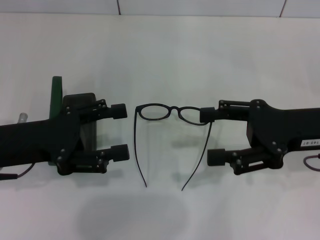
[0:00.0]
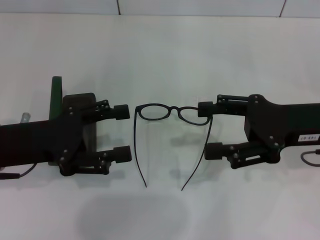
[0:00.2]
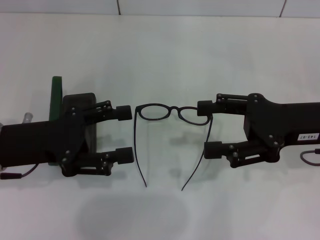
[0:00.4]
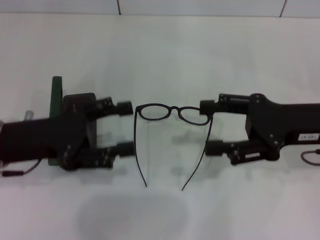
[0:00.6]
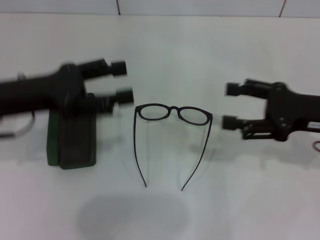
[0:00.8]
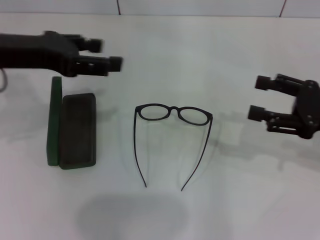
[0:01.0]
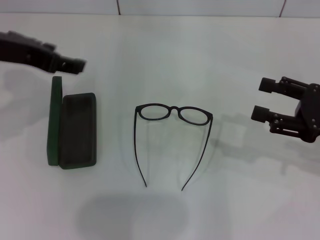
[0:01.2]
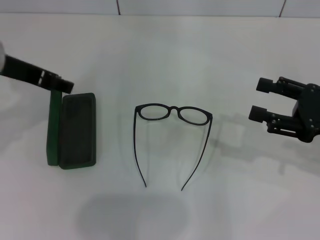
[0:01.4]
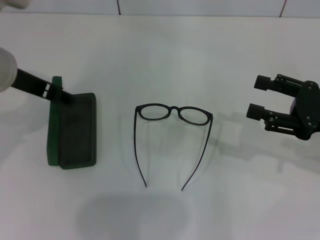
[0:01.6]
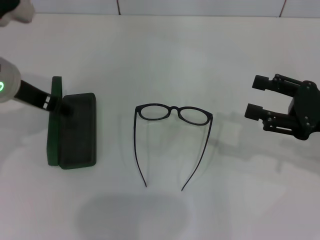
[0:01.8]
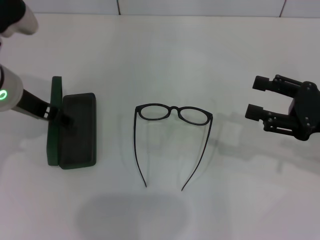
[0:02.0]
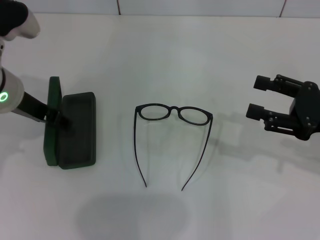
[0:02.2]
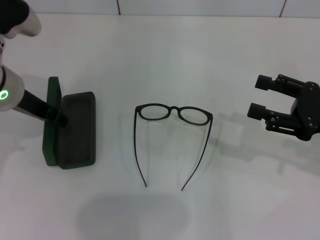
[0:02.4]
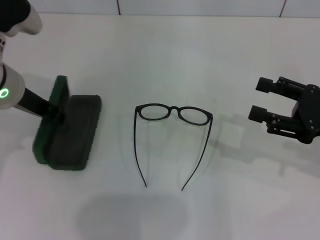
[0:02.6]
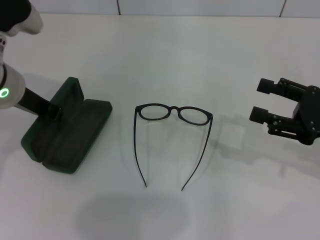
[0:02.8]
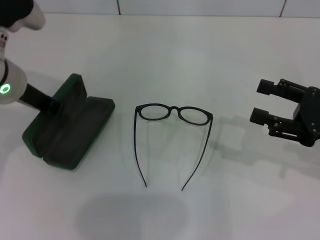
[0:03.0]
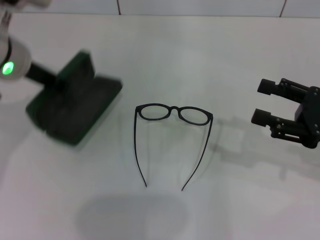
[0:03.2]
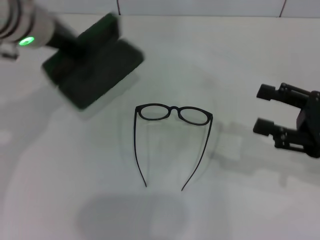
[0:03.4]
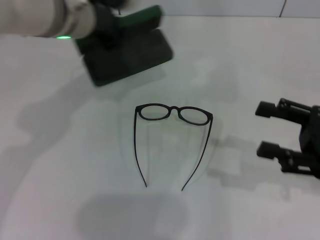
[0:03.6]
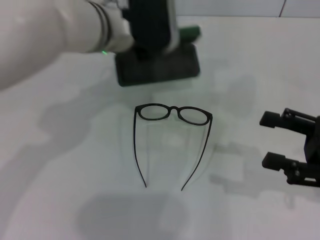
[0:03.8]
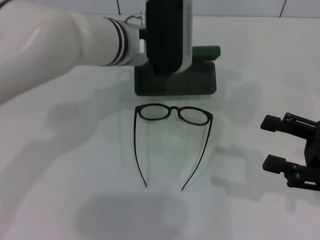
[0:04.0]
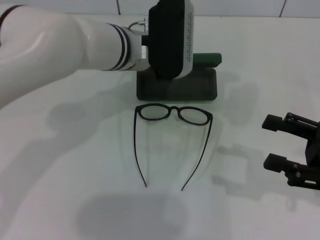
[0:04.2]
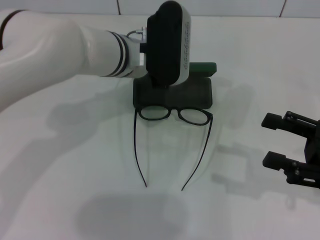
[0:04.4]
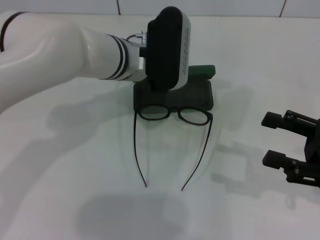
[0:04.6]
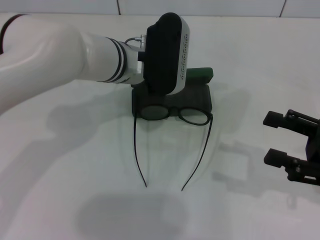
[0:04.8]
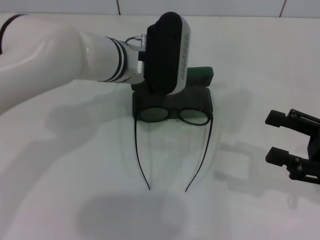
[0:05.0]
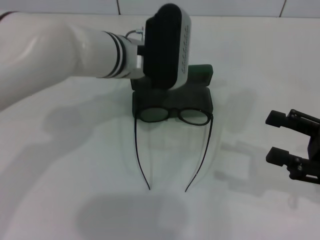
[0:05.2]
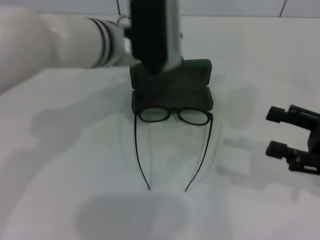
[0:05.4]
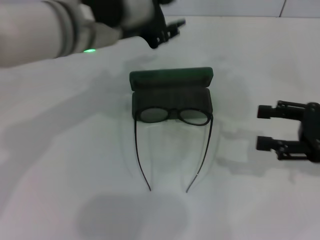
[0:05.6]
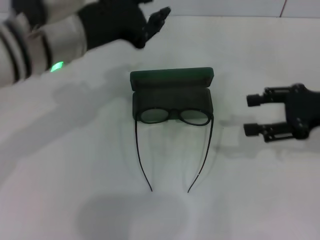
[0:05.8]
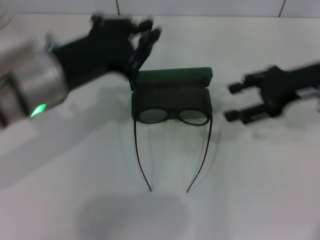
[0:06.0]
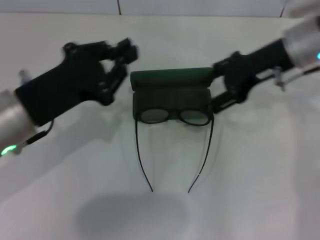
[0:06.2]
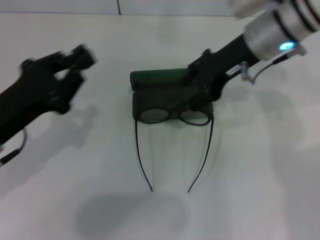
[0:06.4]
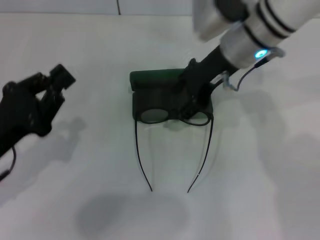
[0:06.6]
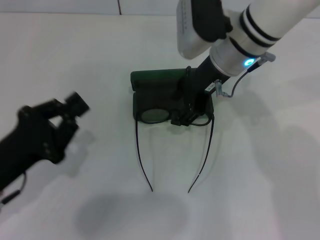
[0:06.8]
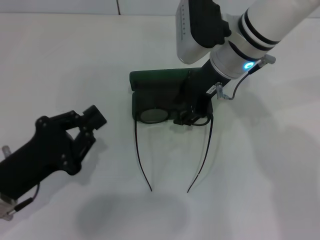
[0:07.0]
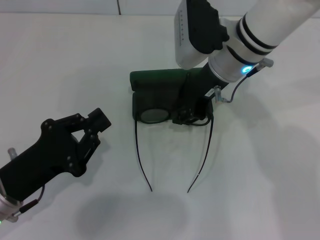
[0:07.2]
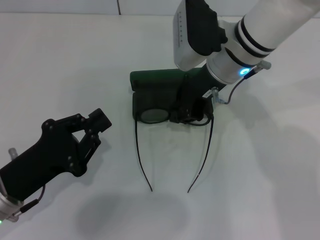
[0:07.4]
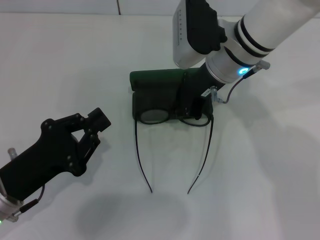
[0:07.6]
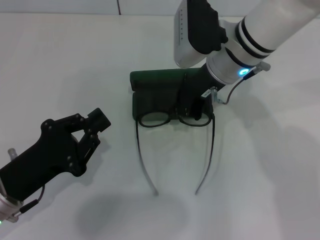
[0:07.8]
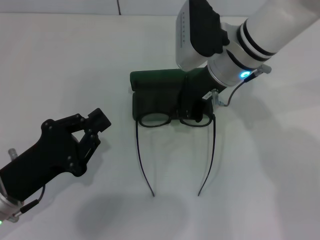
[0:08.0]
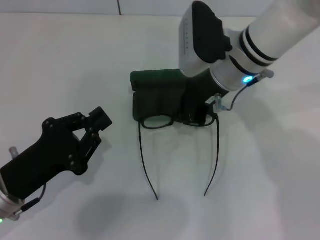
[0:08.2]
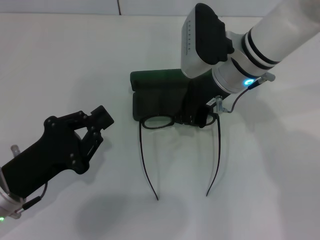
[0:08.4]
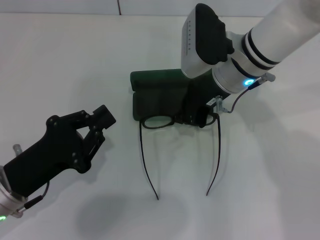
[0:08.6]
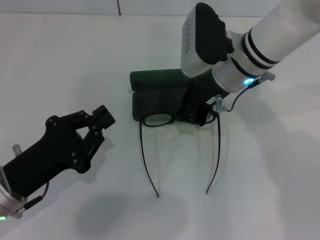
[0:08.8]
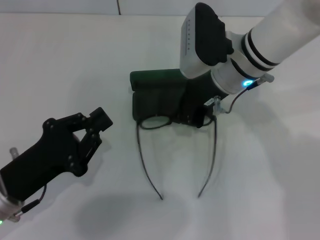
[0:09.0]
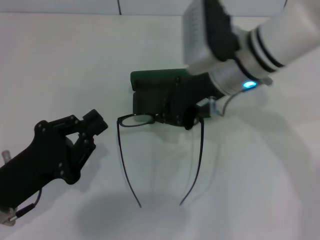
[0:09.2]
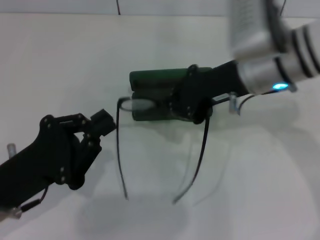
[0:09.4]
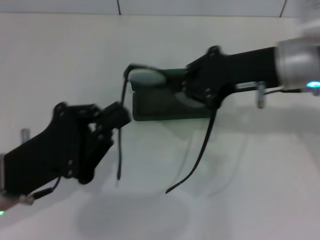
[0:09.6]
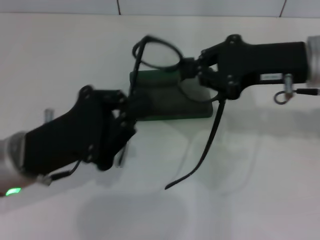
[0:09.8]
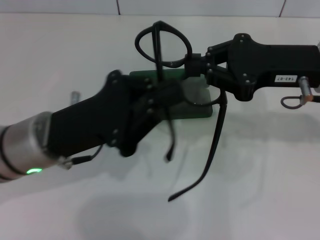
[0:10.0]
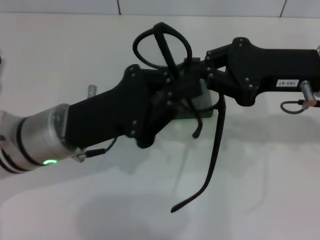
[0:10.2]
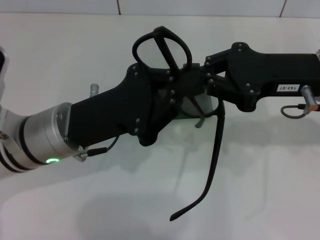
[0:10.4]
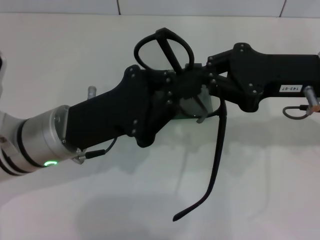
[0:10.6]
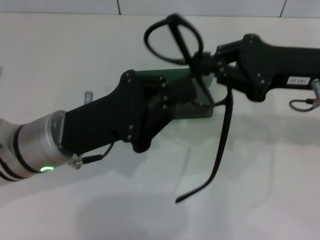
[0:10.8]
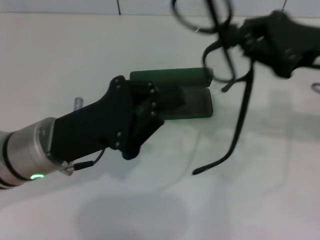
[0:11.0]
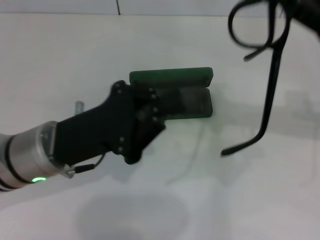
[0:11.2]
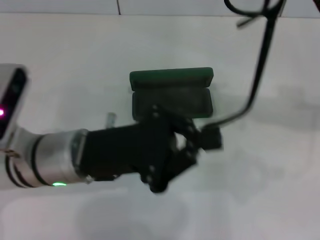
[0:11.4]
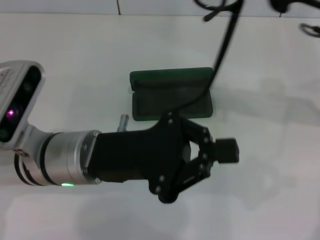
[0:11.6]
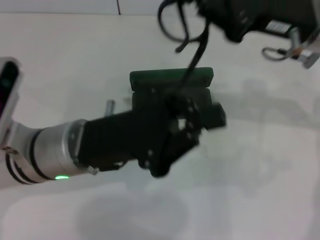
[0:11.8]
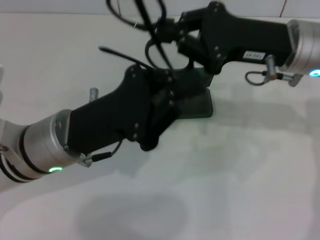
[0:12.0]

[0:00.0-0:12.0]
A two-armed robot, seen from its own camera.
Step, 0:00.0 to 0:02.8: Grab the glasses case with your left hand.
Step, 0:03.0 to 0:04.8: Place the glasses case in the center of the table with your left hand.
Step, 0:05.2 to 0:08.6: Grab the eyeglass frame with your right hand.
0:00.0 to 0:01.6: The left gripper travels upward and forward by some 10 cm. The right gripper travels to the right by some 5 cm.
0:01.6 to 0:03.0: The left gripper closes.
0:03.0 to 0:04.4: The left gripper goes about 15 cm to the right.
0:04.4 to 0:06.0: The right gripper heads forward, upward and to the left, covering about 15 cm, while the left gripper goes some 15 cm backward and to the left.
0:06.0 to 0:07.6: The right gripper shifts about 15 cm to the left, and closes its fingers. The left gripper goes some 15 cm downward, backward and to the left.
0:07.6 to 0:09.0: There are only small adjustments of the grippers.
0:09.0 to 0:10.4: The right gripper shifts about 15 cm to the right and backward; the left gripper travels to the right, forward and upward by roughly 15 cm.

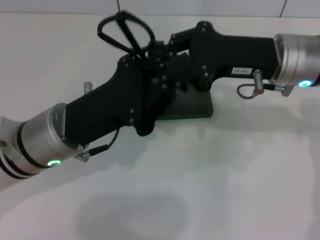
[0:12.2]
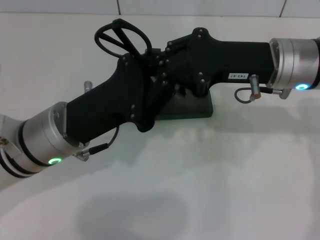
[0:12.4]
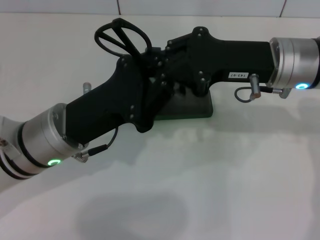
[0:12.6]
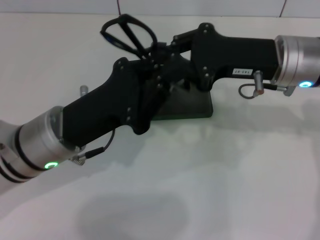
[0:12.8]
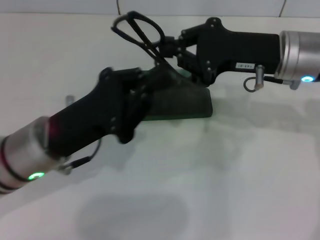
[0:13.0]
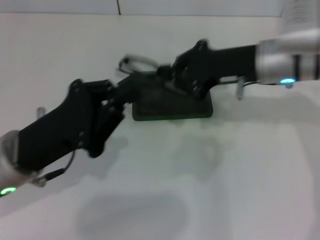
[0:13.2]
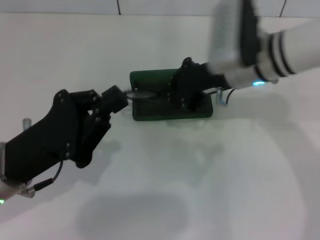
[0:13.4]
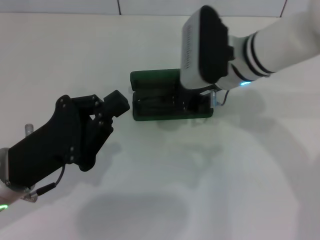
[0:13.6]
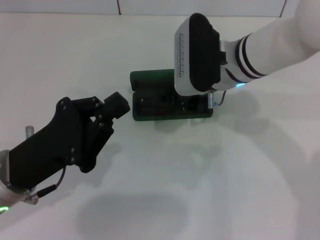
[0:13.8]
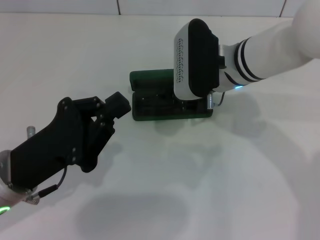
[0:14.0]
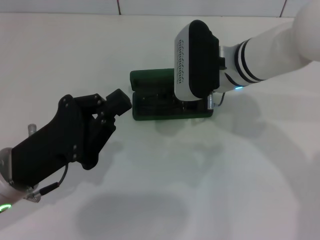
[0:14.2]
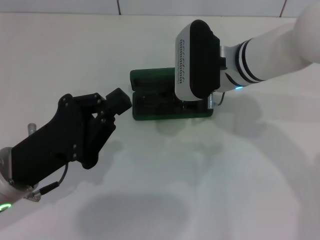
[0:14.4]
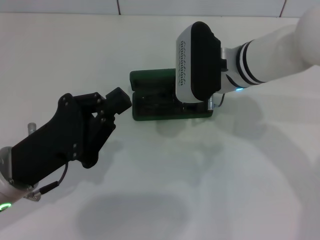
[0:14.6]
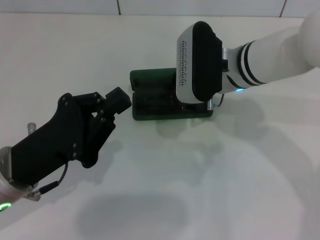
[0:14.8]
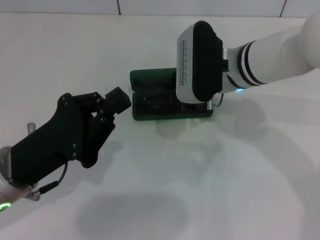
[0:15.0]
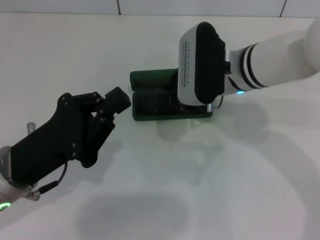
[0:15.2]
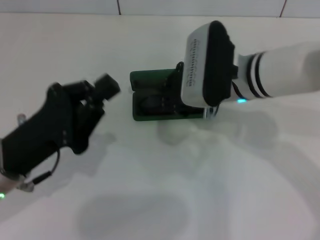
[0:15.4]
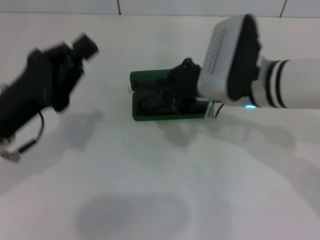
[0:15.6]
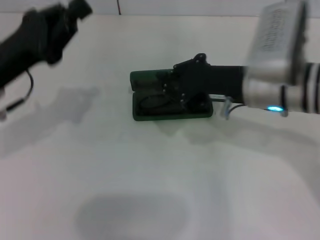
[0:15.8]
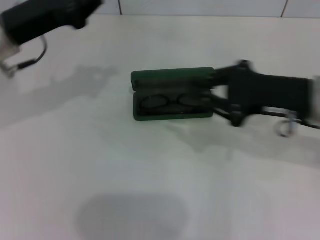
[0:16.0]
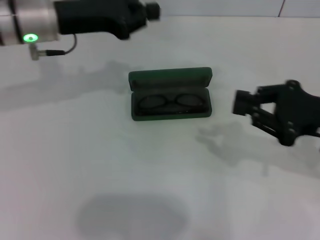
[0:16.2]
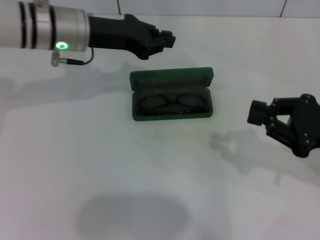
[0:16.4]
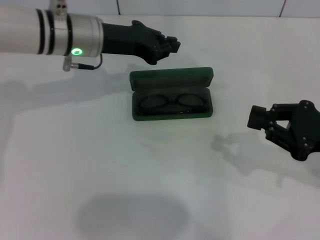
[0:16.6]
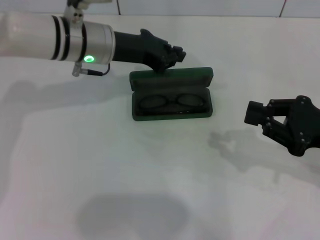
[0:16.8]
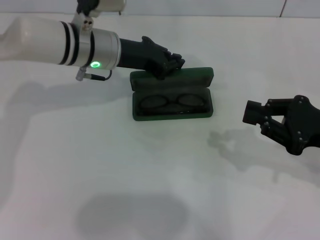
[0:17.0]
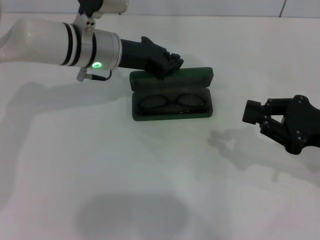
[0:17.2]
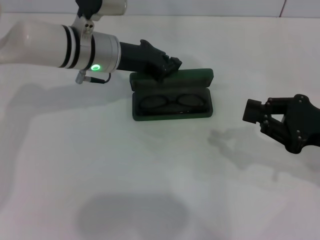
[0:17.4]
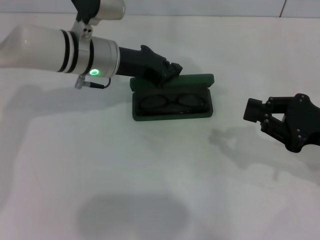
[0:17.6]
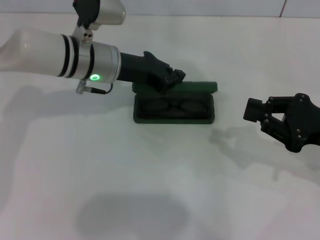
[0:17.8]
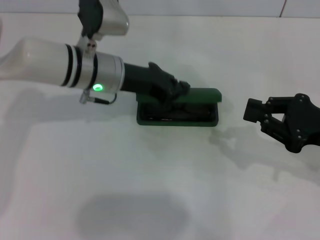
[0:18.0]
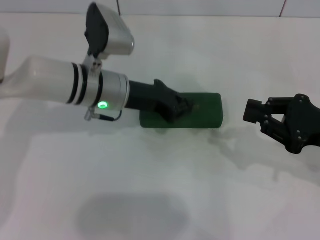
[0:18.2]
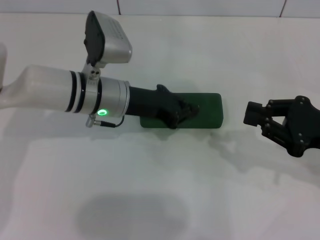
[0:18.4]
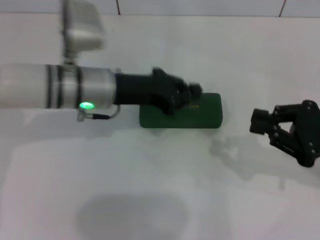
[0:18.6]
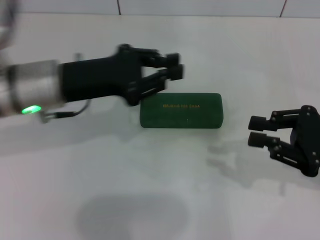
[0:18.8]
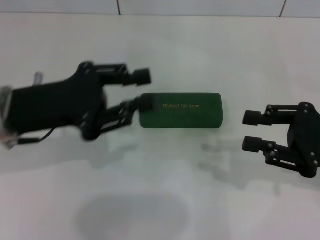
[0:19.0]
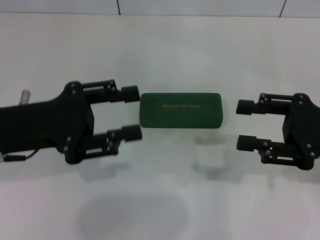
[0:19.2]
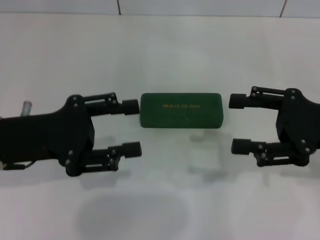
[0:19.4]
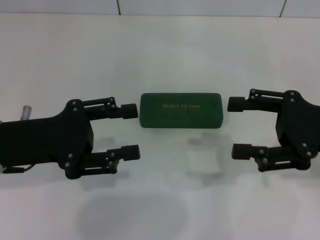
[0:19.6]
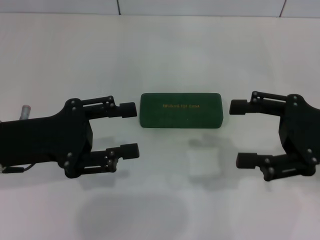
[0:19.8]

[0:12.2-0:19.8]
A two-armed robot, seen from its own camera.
Step, 0:13.0 to 0:15.2: Put the glasses into the case with your right hand.
Step, 0:15.4 to 0:18.2: Close the glasses case with your left hand.
0:12.2 to 0:13.8: The two grippers go about 5 cm to the left.
0:13.8 to 0:15.2: The grippers make only small movements.
0:15.2 to 0:16.8: The left gripper shifts some 20 cm forward. Meanwhile the right gripper travels to the right and backward by approximately 25 cm.
0:16.8 to 0:18.2: The left gripper shifts by some 5 cm.
0:18.2 to 0:19.8: The right gripper ends up about 5 cm from where it was, and opens its fingers; the left gripper travels to the left and backward by approximately 20 cm, and opens up.
